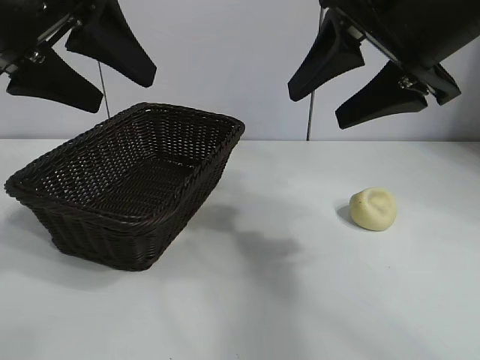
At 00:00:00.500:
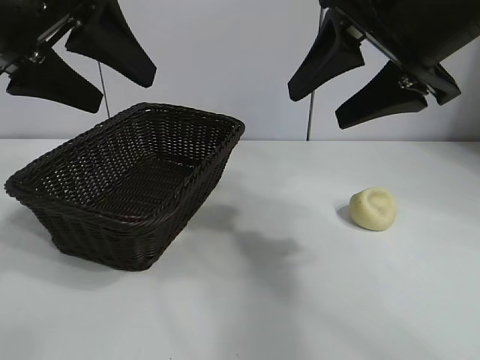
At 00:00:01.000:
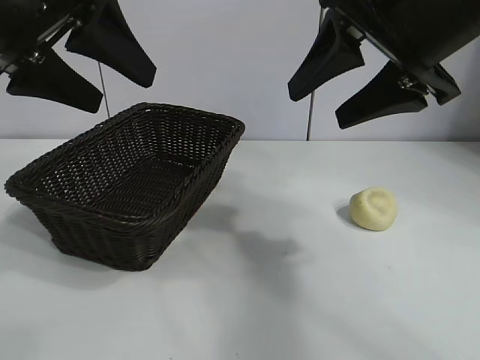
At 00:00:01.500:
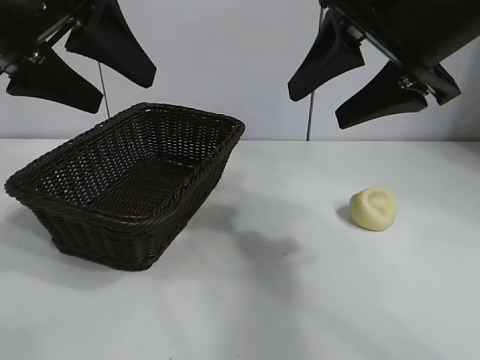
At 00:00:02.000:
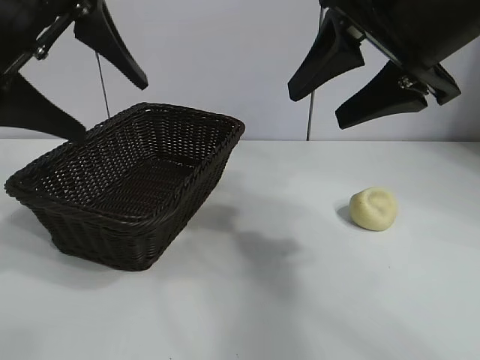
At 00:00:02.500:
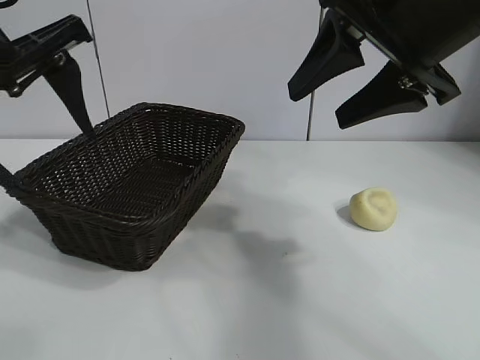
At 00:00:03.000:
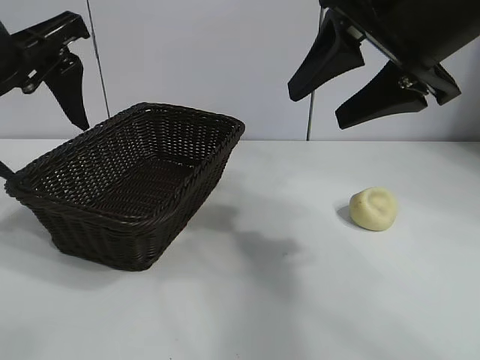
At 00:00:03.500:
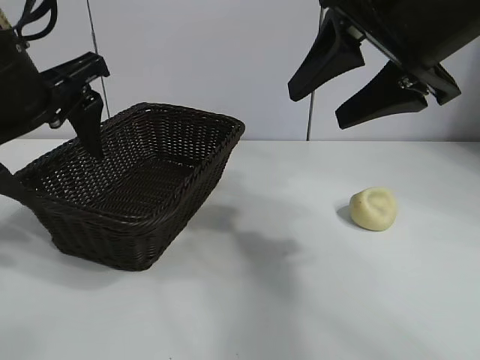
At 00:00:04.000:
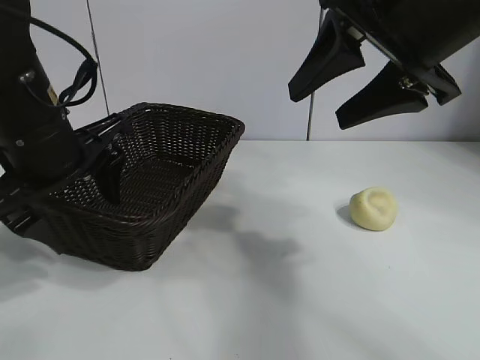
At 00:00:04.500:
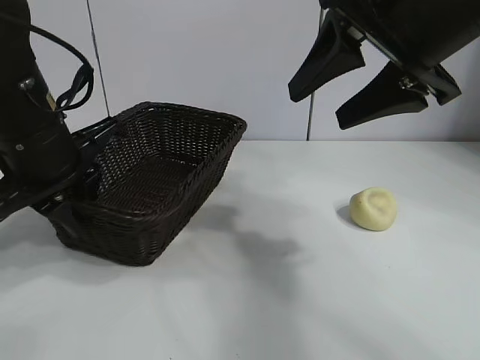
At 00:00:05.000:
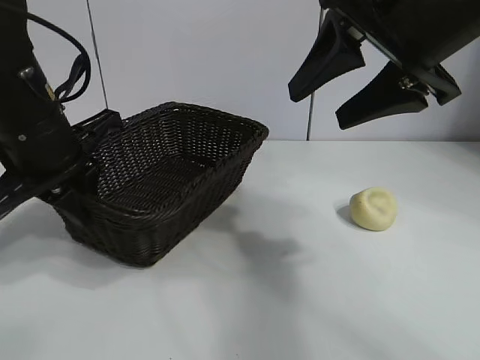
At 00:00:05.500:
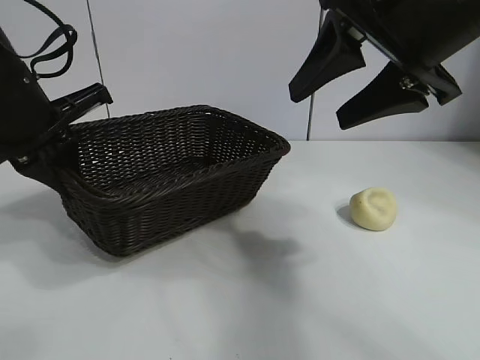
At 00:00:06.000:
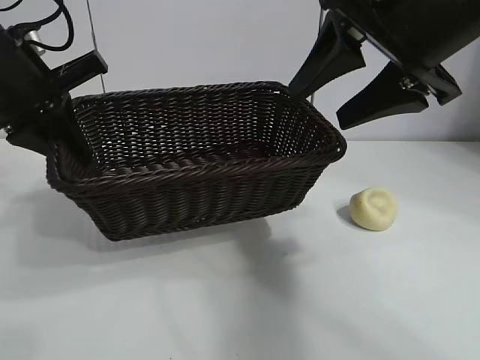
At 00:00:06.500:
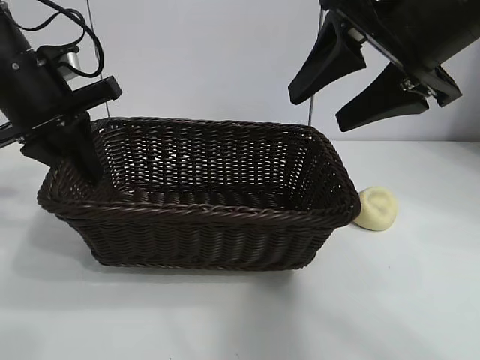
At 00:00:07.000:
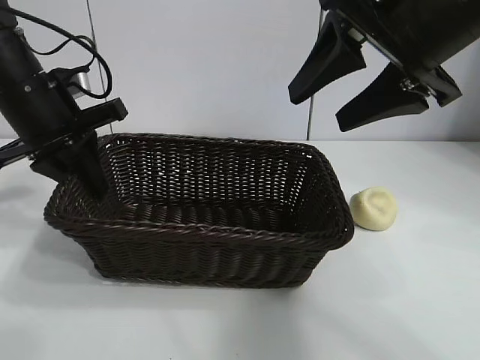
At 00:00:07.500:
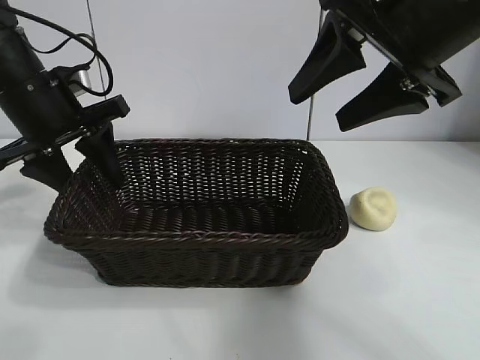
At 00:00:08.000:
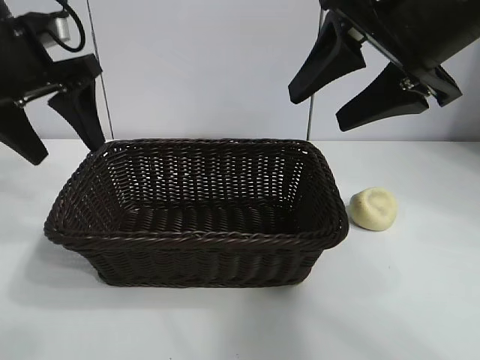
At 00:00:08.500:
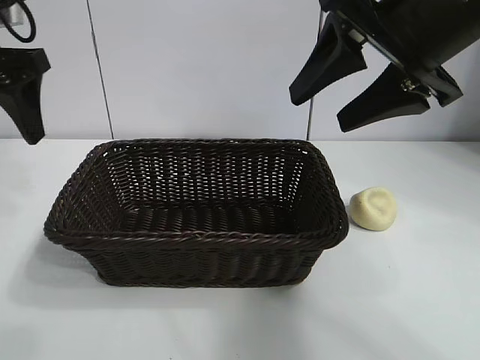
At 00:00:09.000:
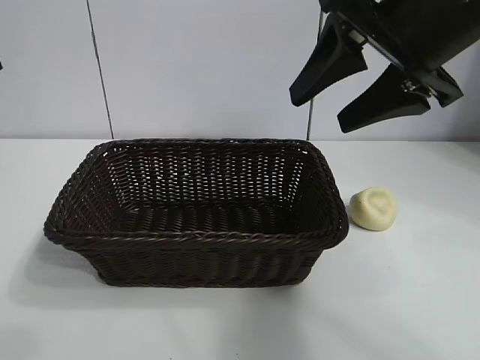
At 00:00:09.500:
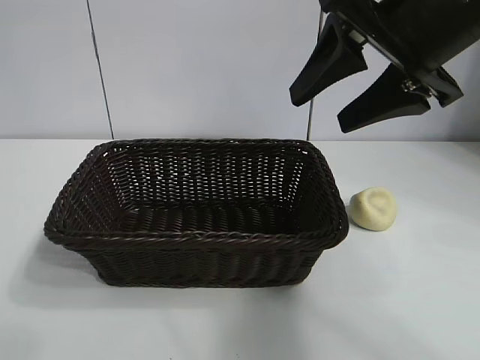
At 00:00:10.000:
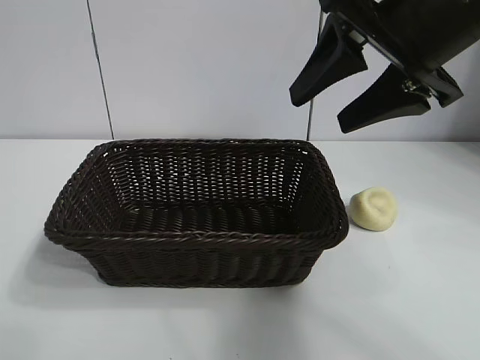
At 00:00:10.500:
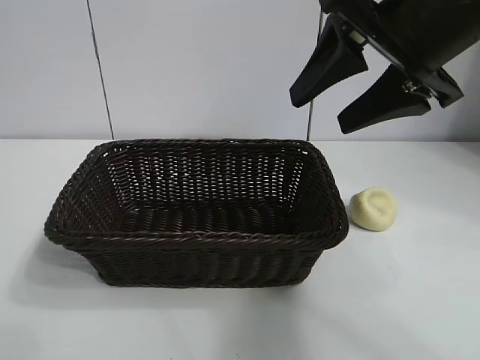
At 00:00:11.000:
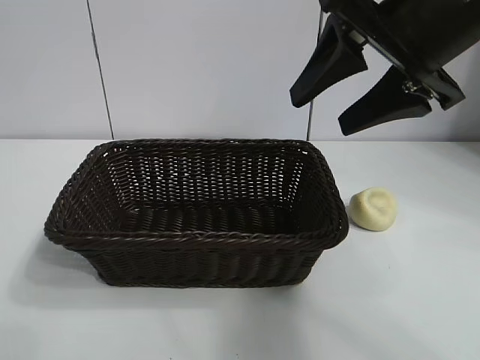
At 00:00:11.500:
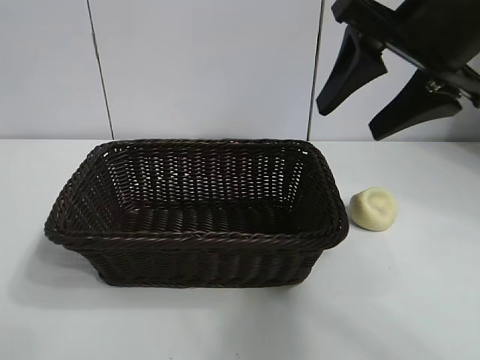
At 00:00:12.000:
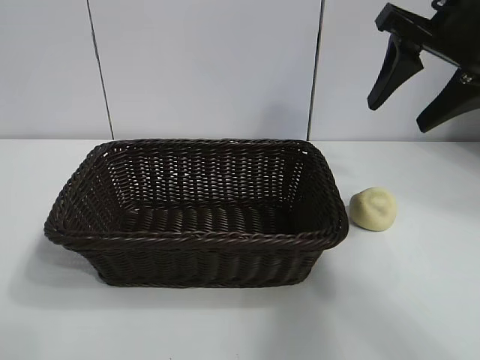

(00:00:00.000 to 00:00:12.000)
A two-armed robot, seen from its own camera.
Task of the whole recording: pick up the egg yolk pastry and put it into the basket.
Step, 00:00:02.000 - 00:00:04.500: Grasp the basket with left gripper.
Step, 00:00:05.000 - 00:00:07.500: Place the basket in the center of view with left gripper.

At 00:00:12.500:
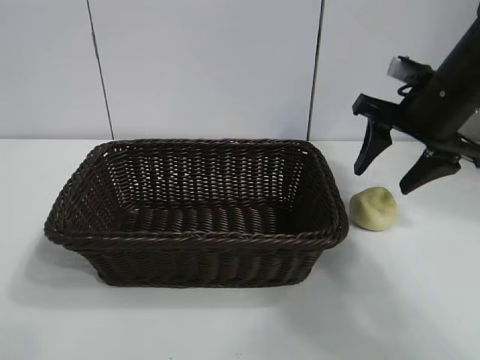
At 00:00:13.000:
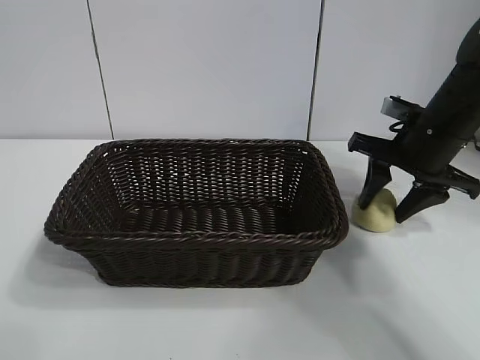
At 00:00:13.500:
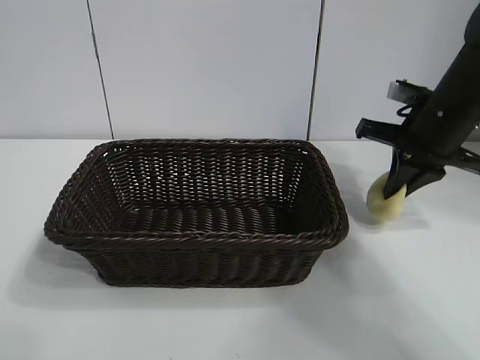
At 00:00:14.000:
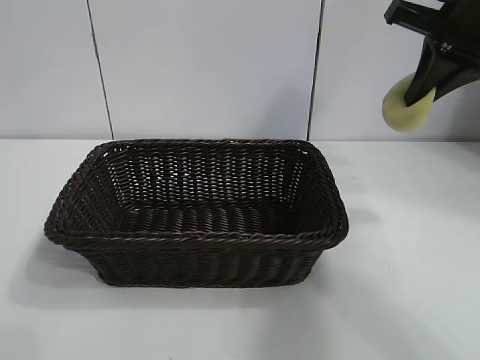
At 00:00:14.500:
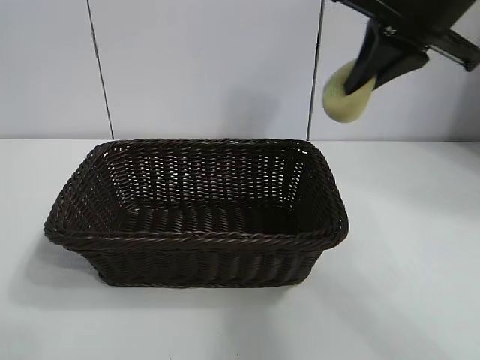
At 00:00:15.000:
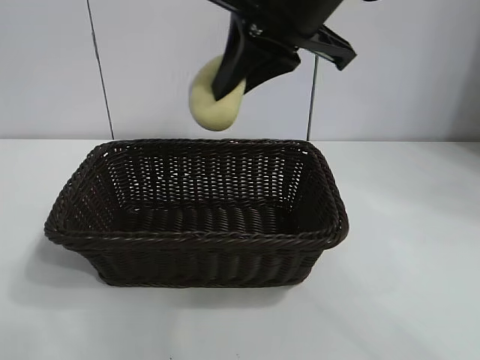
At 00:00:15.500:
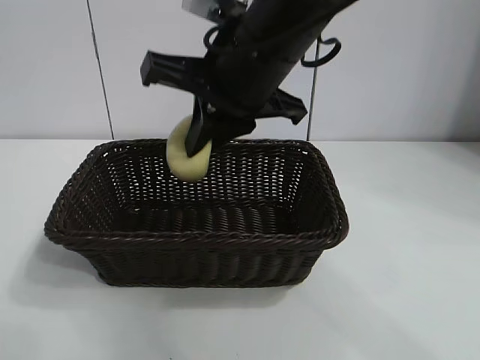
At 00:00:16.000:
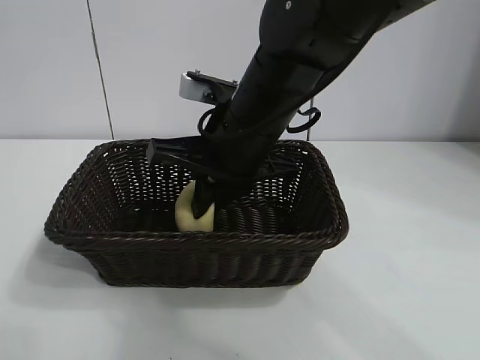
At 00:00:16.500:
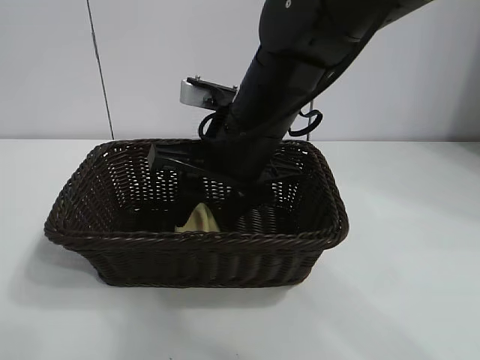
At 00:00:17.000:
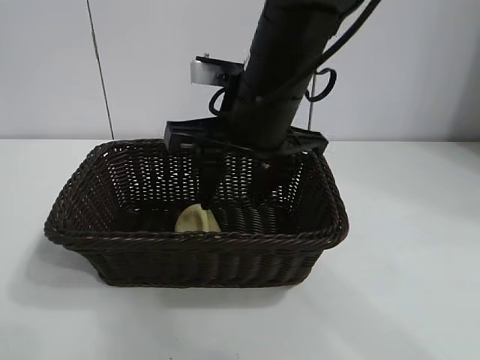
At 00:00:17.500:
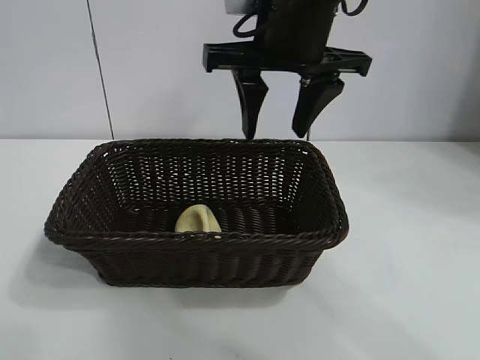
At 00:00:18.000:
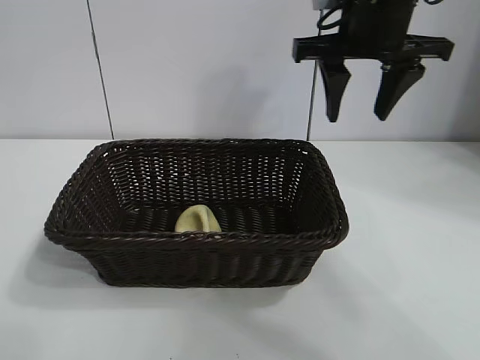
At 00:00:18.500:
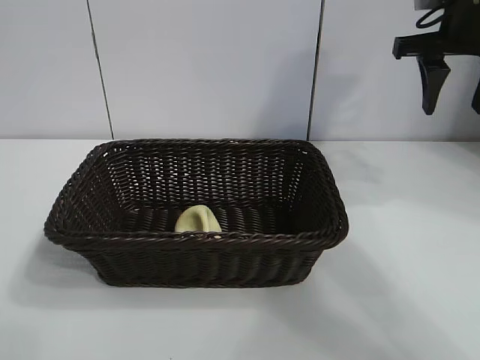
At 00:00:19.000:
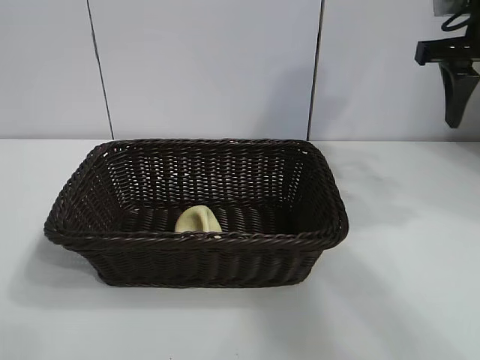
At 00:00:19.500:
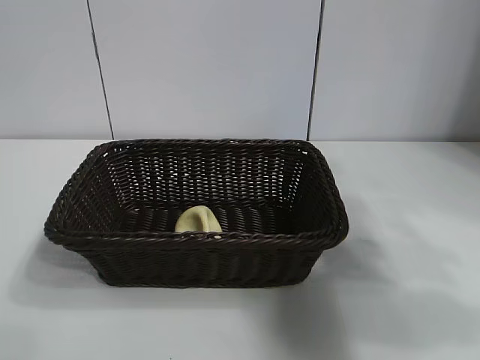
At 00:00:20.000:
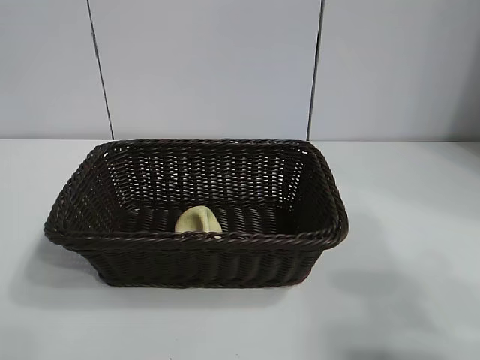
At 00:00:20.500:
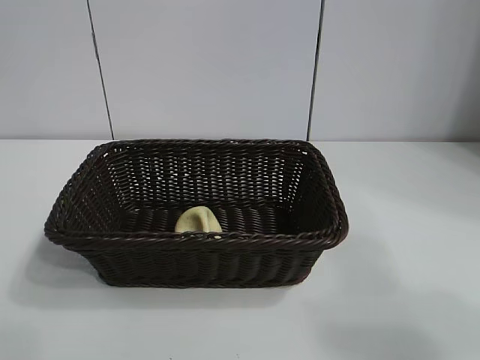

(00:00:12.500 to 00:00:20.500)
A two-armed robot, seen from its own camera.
Task of the whole recording: pick up the egg yolk pastry and put it into the basket.
Step, 00:00:13.500 - 00:00:16.500: Place the egg yolk pastry in the basket with right gripper.

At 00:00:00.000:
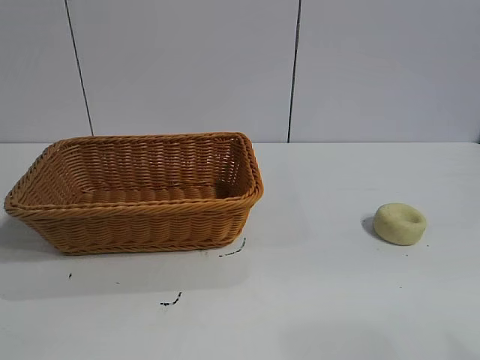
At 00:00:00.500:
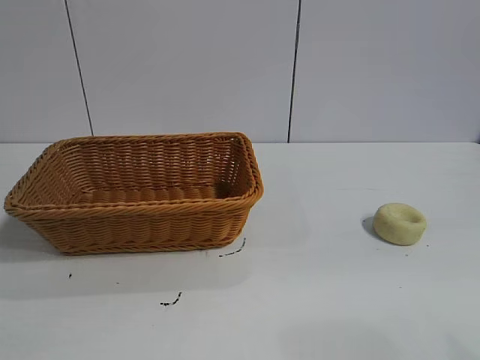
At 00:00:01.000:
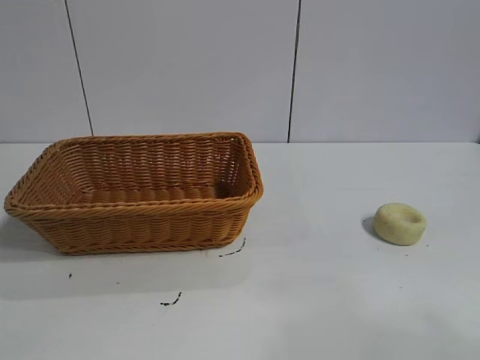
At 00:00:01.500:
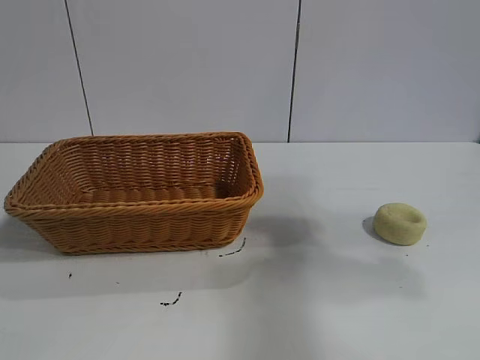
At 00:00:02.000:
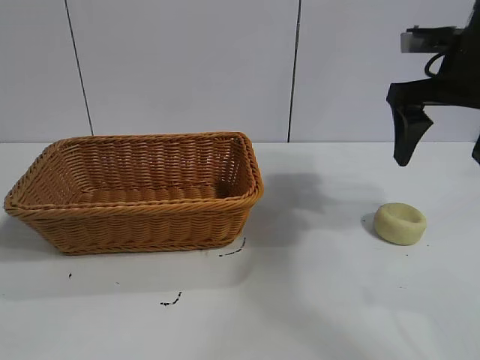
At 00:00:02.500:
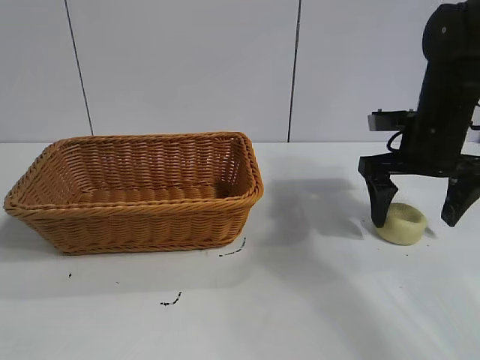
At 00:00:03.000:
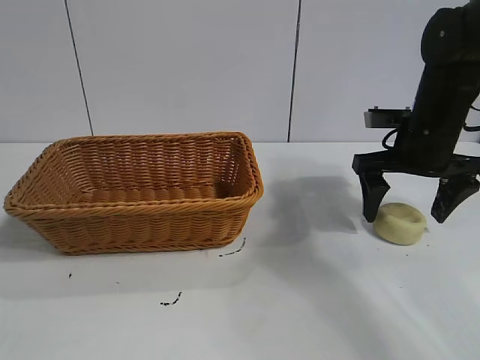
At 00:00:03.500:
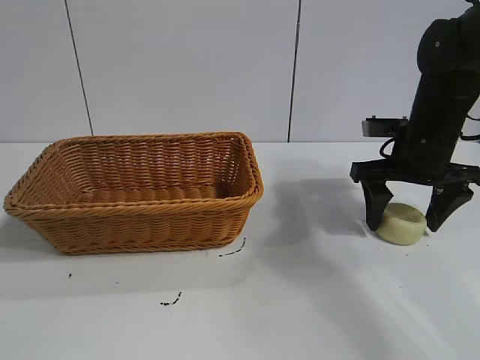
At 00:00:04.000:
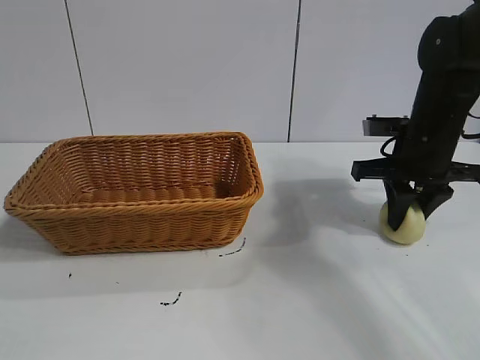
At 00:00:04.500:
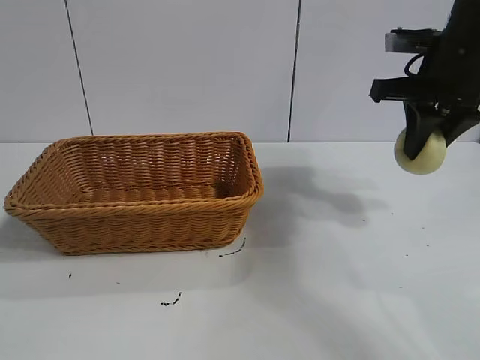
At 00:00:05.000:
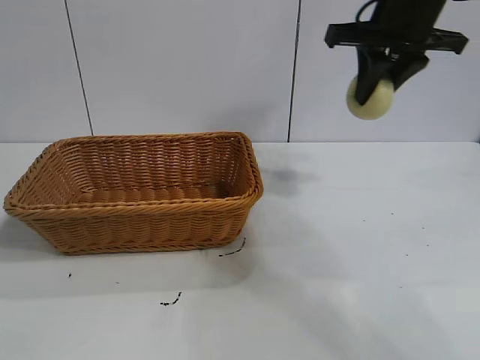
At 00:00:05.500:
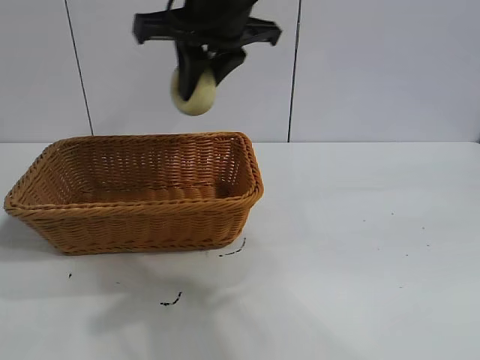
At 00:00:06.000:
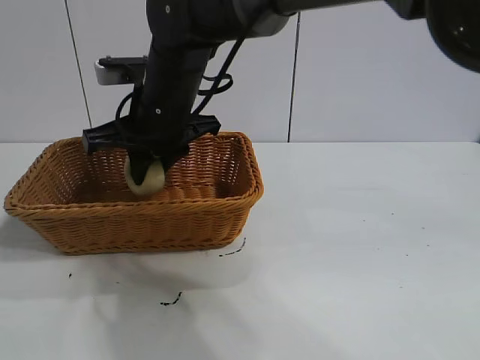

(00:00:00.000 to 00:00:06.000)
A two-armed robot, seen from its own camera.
Task of the whole recording: pick up the egg yolk pastry and put it into the basket.
Step, 00:00:01.000 - 00:00:04.000: Grasp egg yolk pastry with right gripper.
